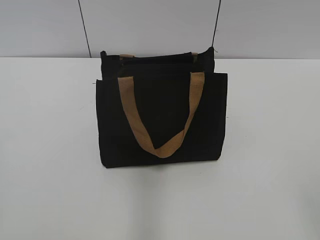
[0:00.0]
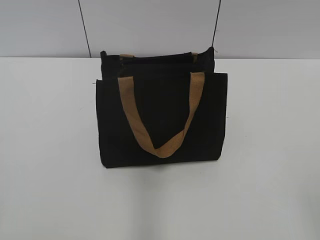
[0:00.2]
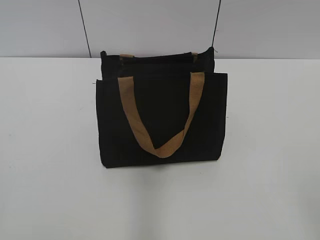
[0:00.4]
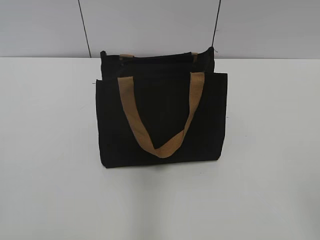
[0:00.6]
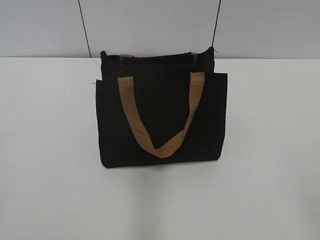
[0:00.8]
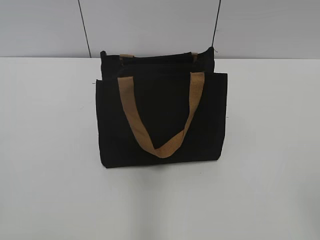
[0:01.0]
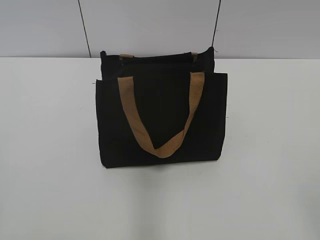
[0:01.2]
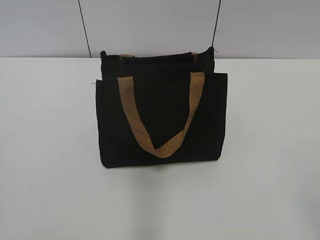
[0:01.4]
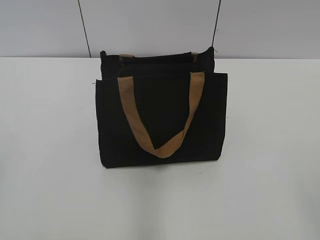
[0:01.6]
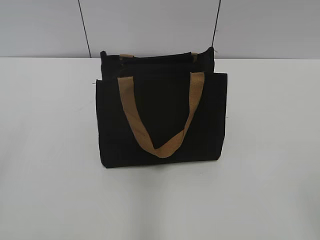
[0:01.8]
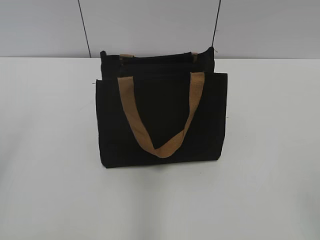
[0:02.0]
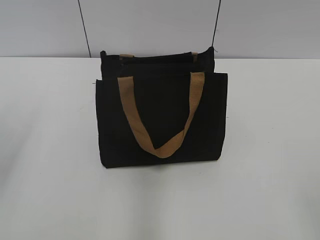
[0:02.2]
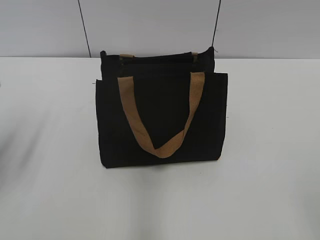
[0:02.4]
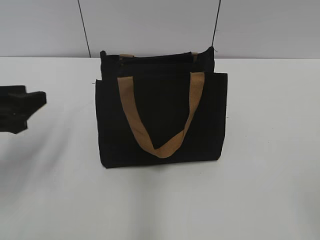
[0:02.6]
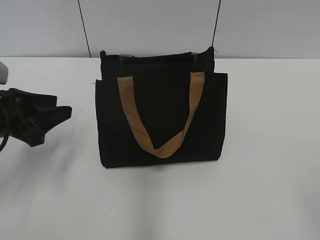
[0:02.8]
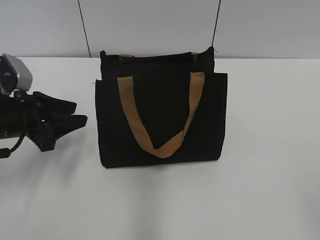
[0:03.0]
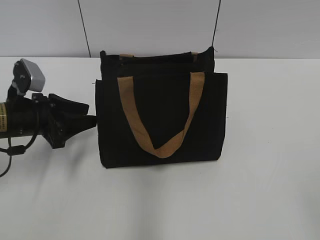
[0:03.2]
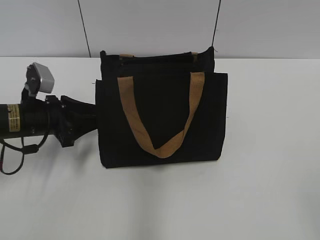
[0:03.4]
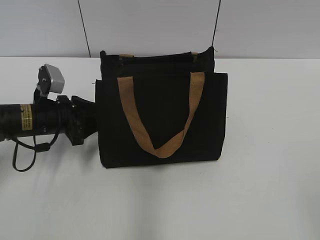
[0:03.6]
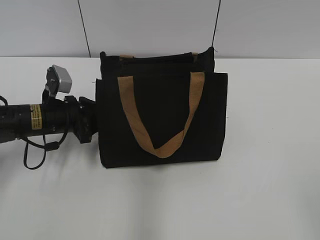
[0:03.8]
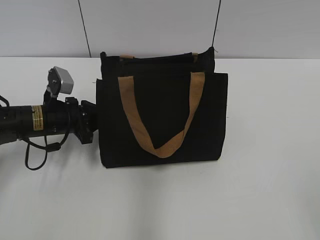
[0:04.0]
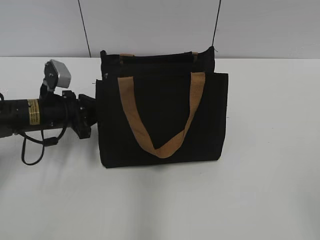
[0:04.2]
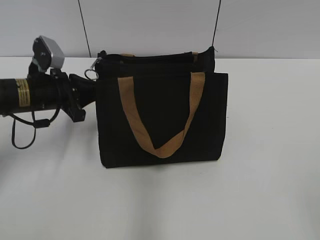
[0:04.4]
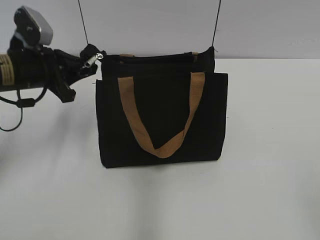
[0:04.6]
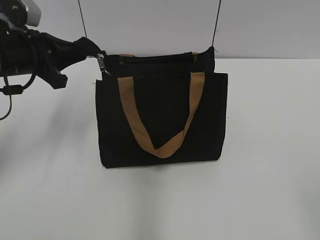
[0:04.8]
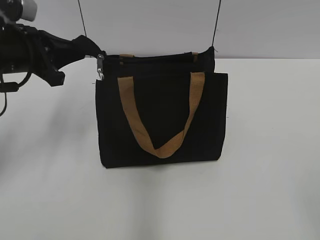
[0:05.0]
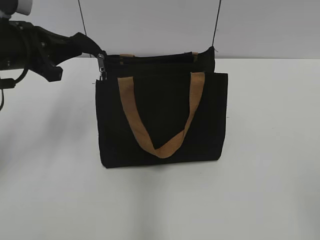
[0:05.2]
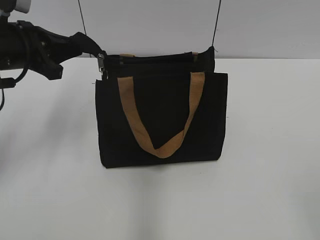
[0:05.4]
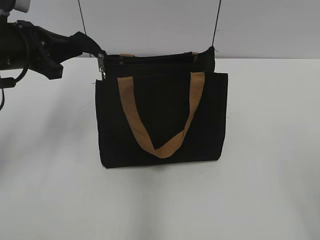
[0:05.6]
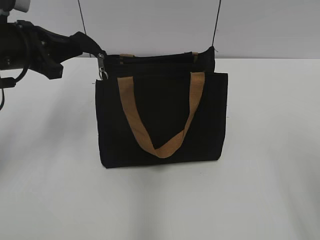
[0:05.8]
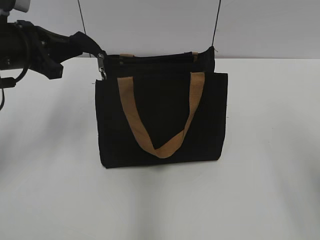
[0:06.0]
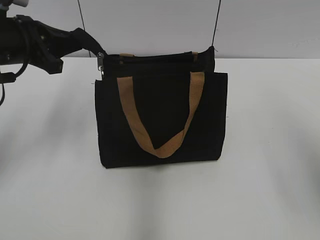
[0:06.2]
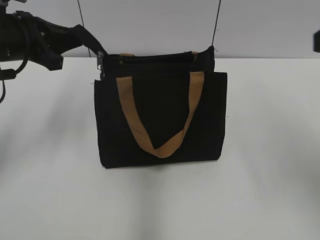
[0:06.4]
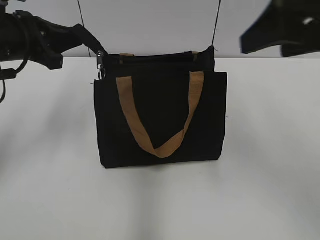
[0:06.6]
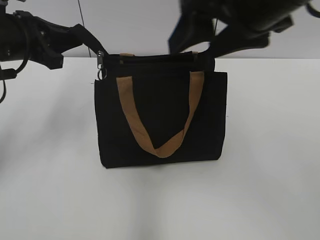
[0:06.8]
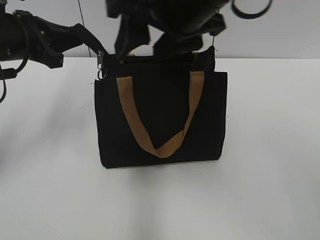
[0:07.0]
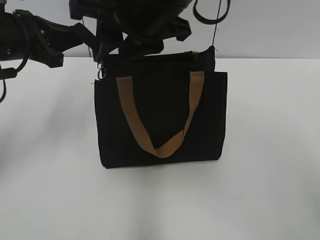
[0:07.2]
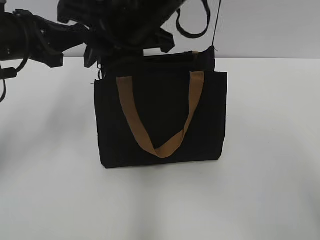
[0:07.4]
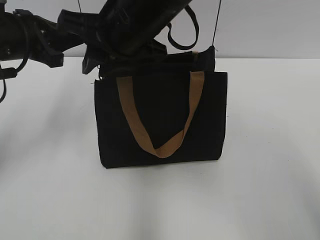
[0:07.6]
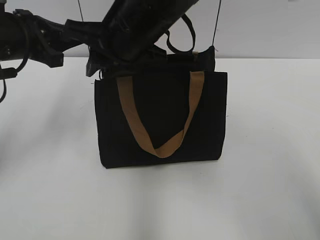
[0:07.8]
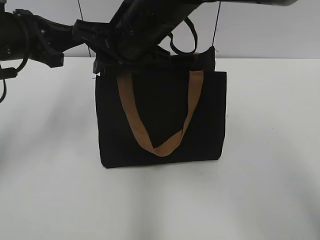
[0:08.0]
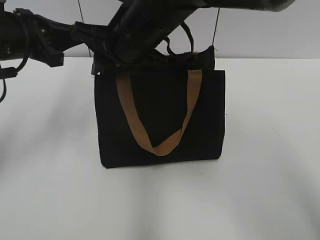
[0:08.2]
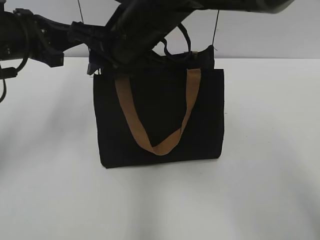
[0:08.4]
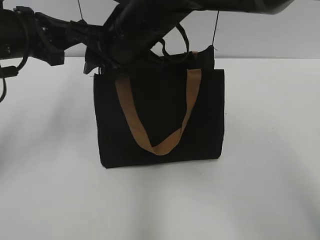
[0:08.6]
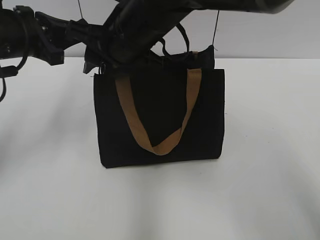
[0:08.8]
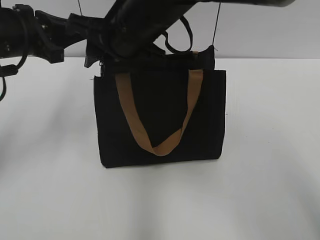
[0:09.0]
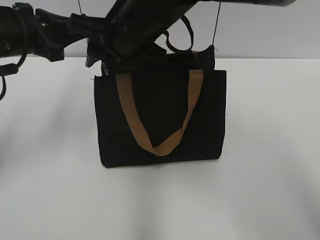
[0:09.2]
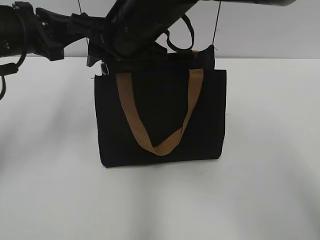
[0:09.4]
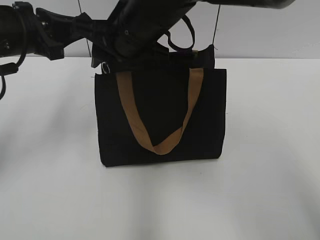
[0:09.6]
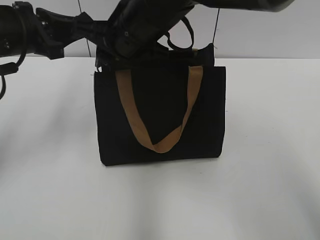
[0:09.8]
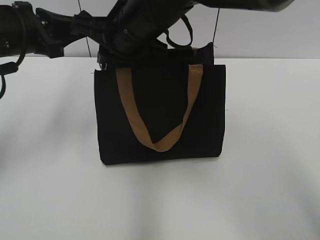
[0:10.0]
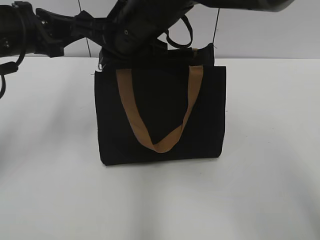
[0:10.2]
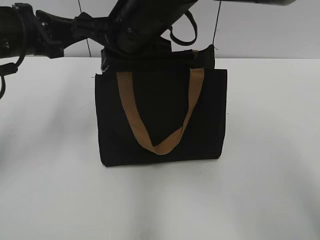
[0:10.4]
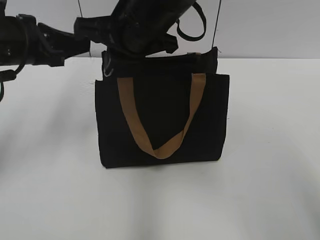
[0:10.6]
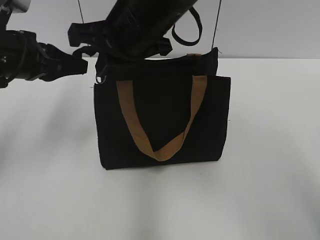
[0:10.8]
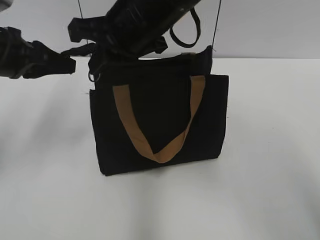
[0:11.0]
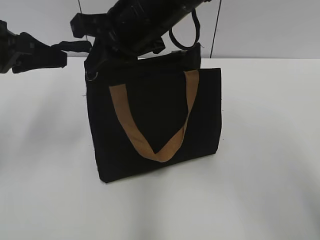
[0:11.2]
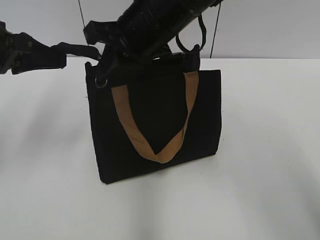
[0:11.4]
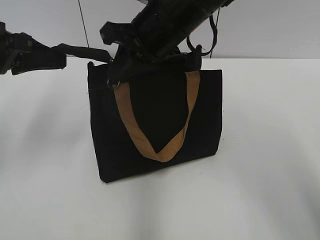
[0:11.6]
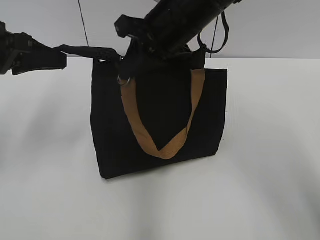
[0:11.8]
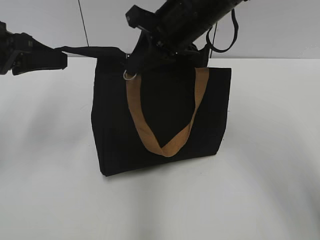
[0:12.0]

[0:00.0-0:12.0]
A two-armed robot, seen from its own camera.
0:01.6 to 0:03.0: The left gripper travels forward and downward by about 30 cm.
0:03.0 to 0:04.4: The left gripper heads forward, covering about 5 cm, and closes.
0:04.4 to 0:06.0: The left gripper goes some 10 cm upward.
0:06.0 to 0:07.6: The right gripper travels to the left and forward by roughly 35 cm, and closes its fingers.
0:07.6 to 0:09.0: The grippers stay close to where they were, moving slightly.
0:09.0 to 0:10.4: The right gripper closes up.
0:10.4 to 0:12.0: The right gripper goes some 5 cm to the right.

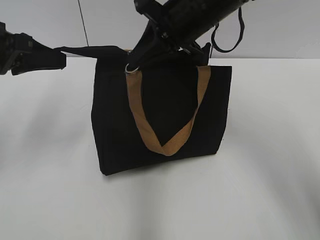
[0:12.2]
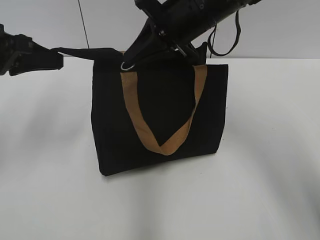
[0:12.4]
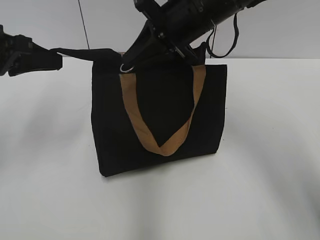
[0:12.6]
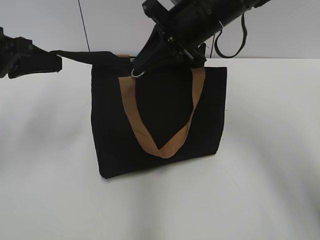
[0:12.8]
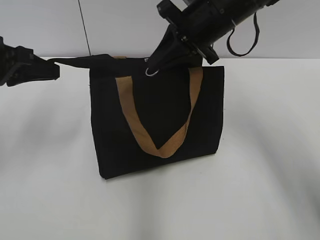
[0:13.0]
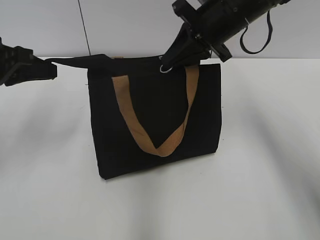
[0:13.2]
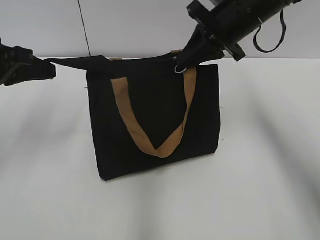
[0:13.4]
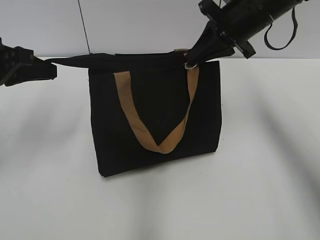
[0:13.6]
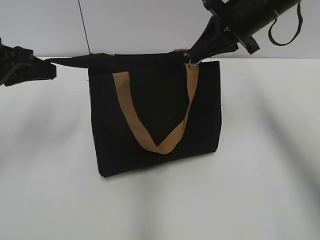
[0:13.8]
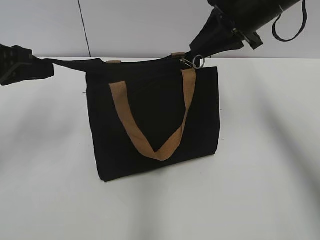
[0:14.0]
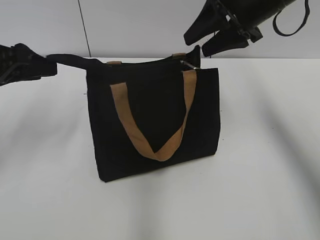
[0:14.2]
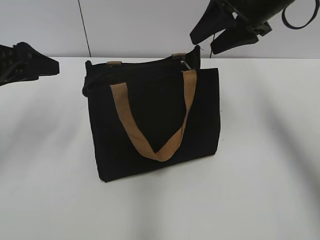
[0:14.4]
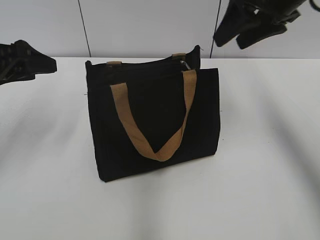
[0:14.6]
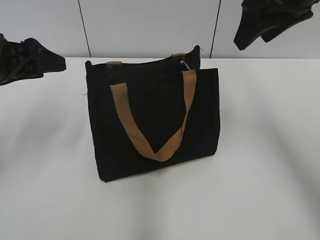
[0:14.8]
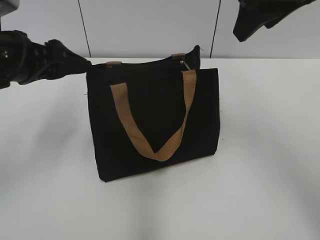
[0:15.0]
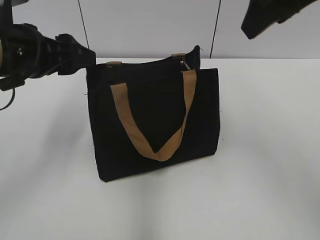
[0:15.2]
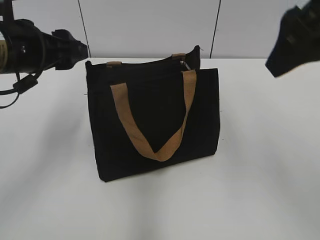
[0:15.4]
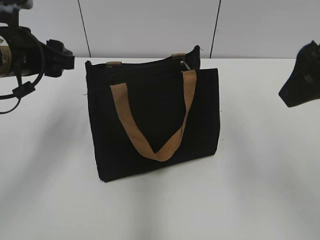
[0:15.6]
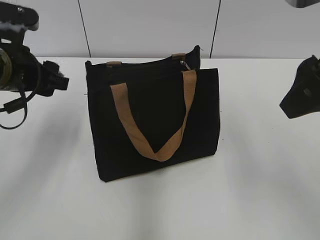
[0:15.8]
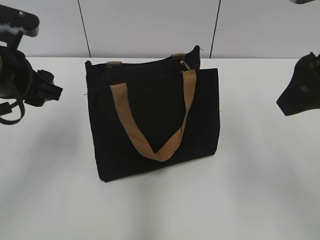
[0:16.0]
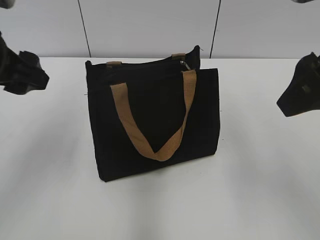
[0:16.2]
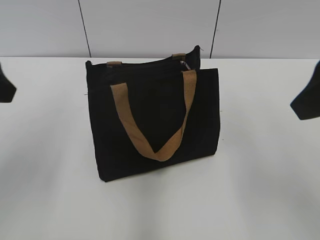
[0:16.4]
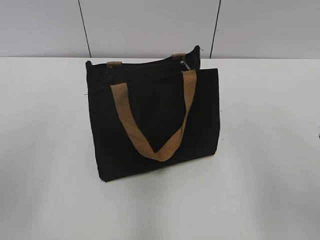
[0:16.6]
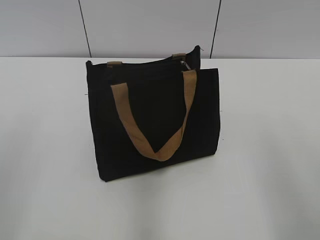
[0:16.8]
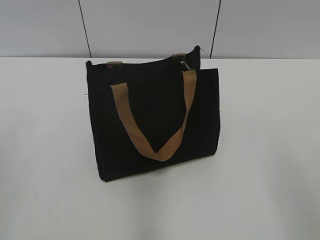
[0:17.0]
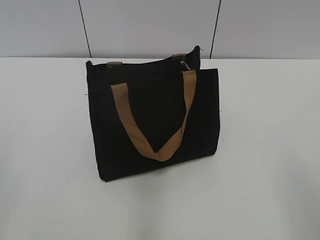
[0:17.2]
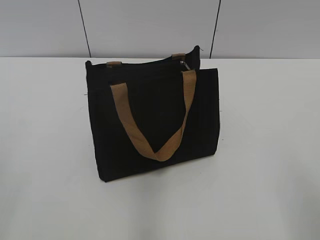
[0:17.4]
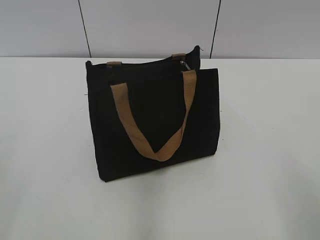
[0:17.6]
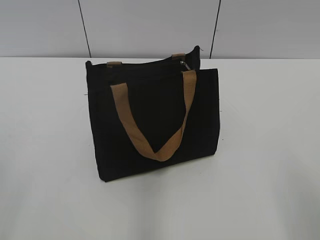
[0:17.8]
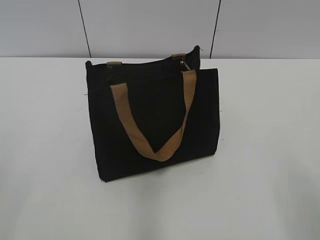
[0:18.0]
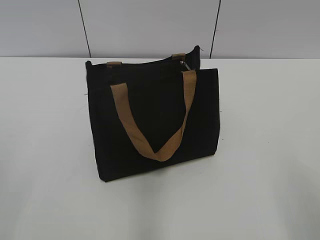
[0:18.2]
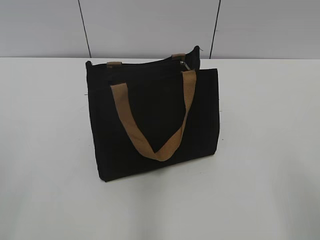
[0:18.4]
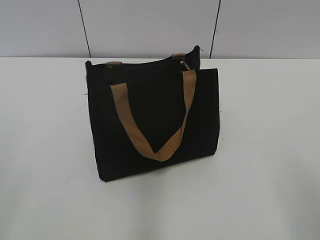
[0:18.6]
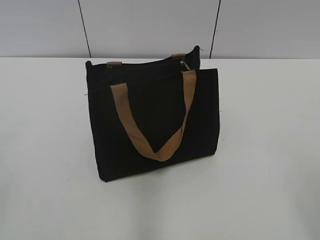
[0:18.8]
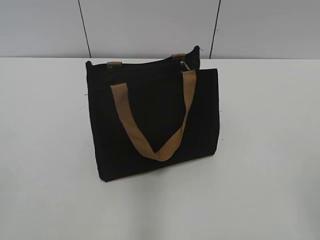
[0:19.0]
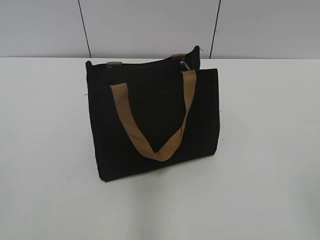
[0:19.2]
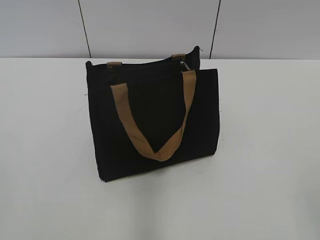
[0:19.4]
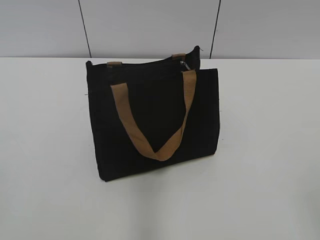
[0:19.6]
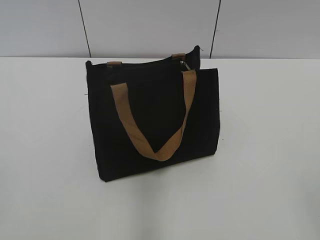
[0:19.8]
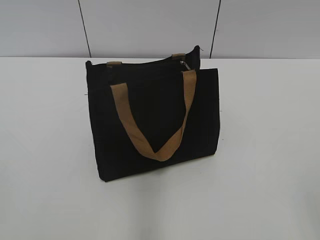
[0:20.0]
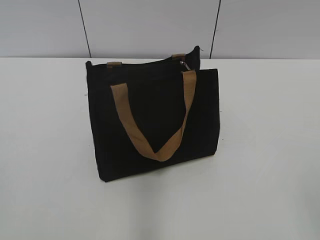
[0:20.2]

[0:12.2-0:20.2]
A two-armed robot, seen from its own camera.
0:12.2 to 0:13.8: The right gripper goes roughly 10 cm to the right.
0:13.8 to 0:15.4: The right gripper is displaced backward and upward by about 20 cm, and opens its fingers, while the left gripper travels to the right by approximately 5 cm, and opens its fingers.
0:15.4 to 0:17.0: The left gripper heads backward and to the left, covering approximately 25 cm; the right gripper travels backward and to the right by approximately 20 cm.
